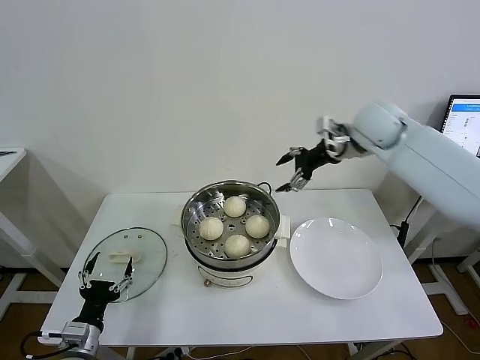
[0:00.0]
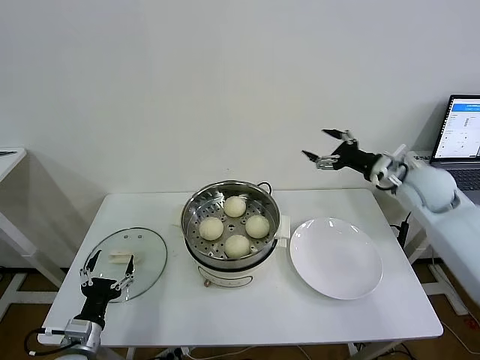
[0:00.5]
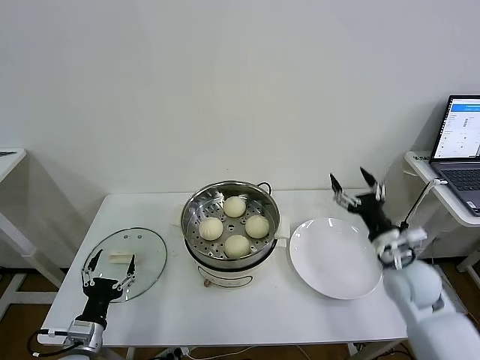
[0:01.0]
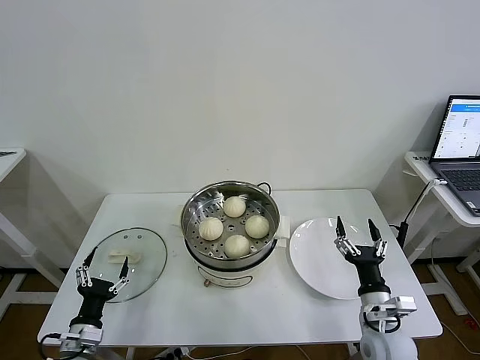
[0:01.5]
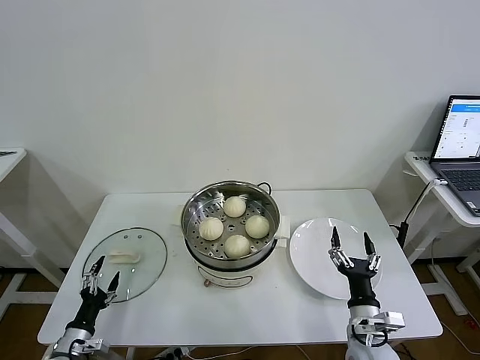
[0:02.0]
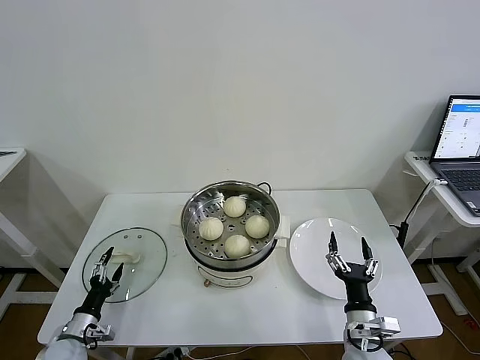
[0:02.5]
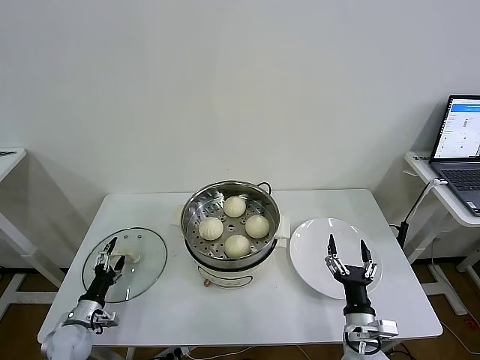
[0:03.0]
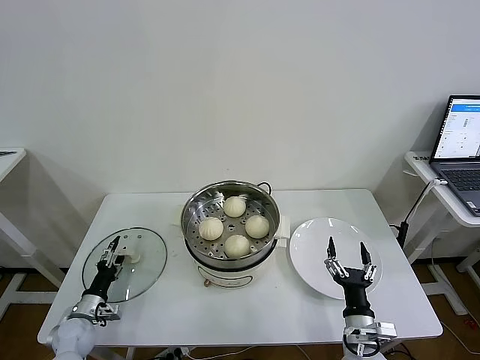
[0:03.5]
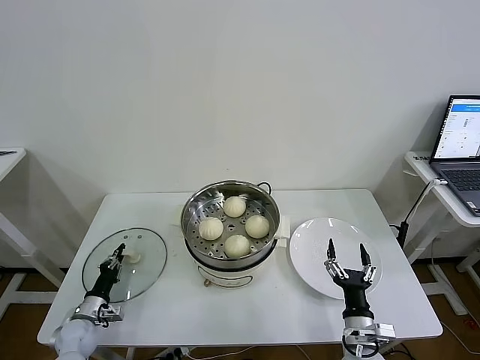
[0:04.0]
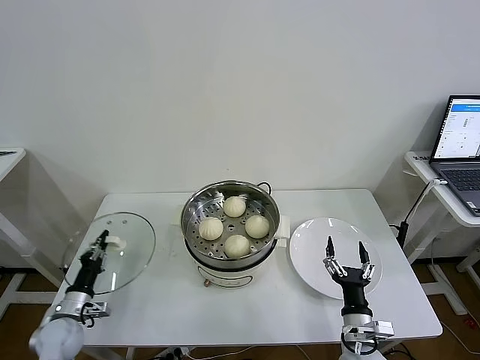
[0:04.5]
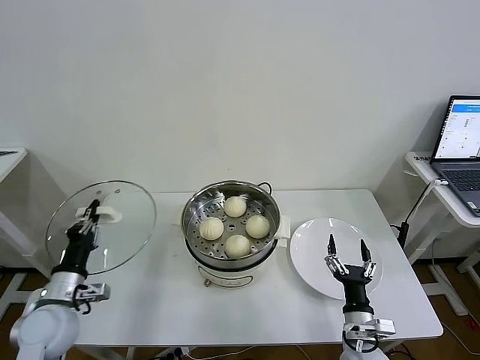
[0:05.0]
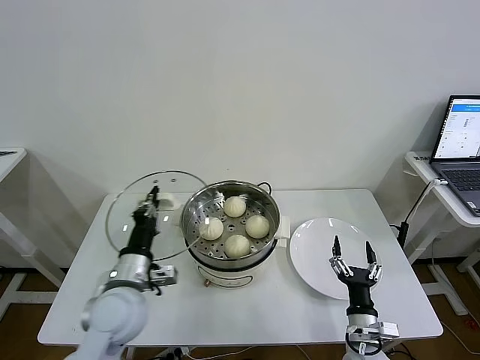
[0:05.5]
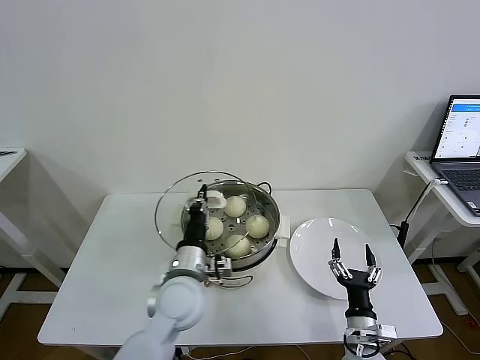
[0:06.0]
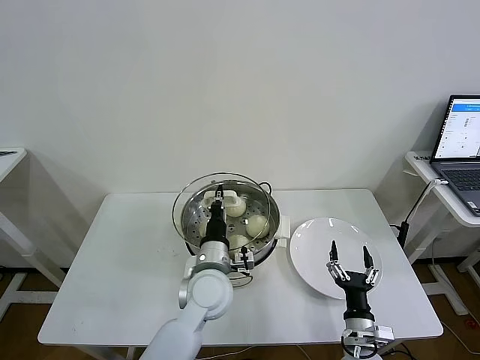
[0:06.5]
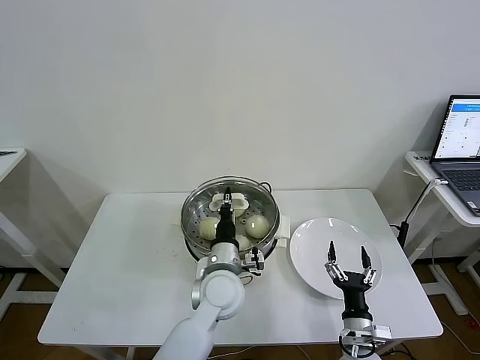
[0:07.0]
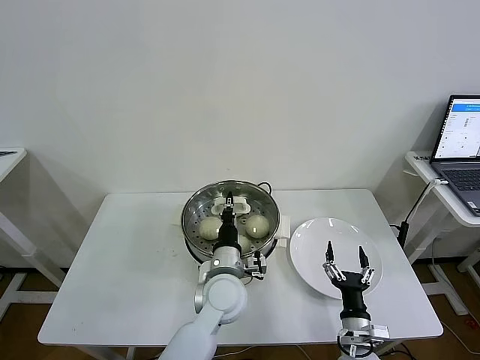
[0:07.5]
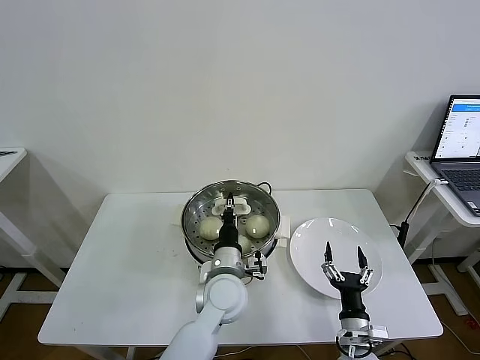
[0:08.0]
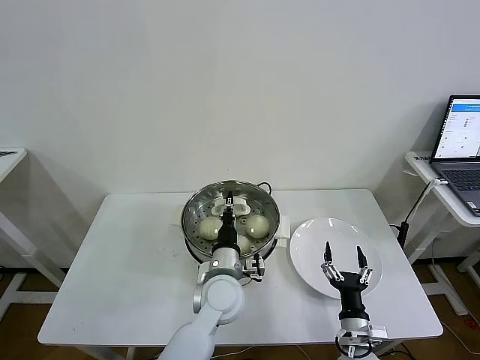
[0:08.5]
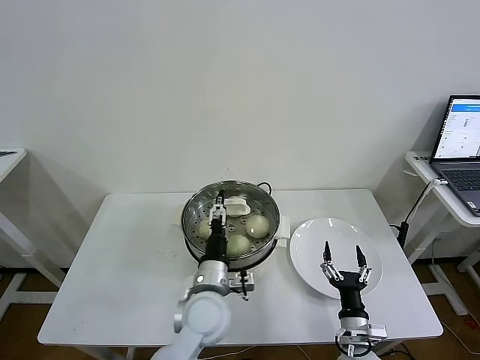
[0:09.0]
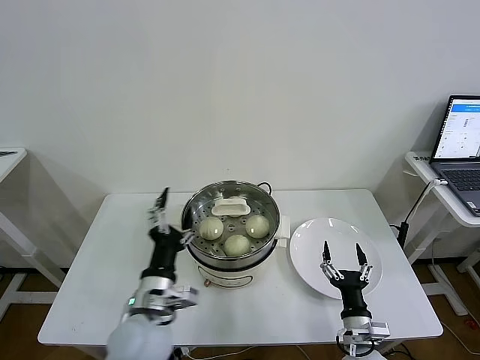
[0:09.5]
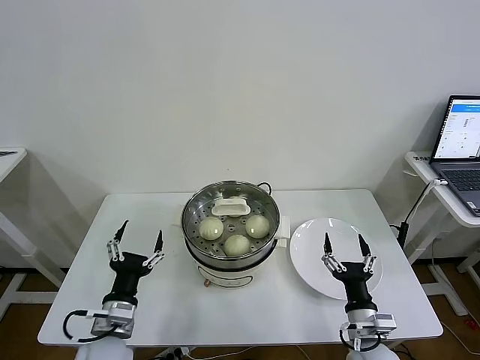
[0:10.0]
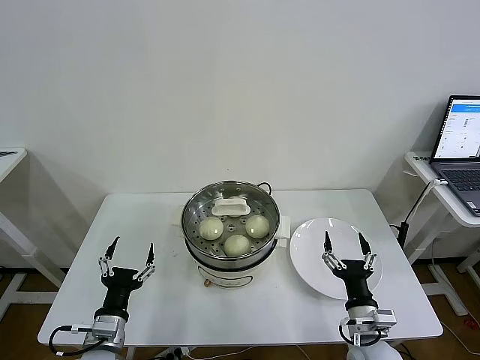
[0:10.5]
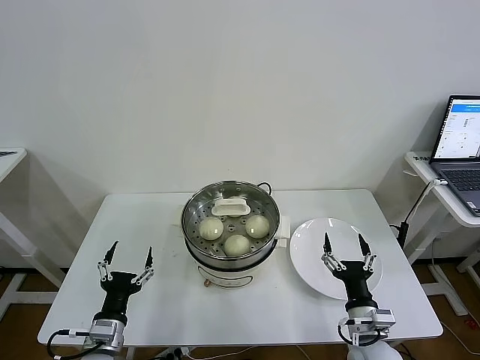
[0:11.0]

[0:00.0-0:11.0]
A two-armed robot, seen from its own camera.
Task of the whole recording: take steamed baozi put them in steamer then cover it.
Step, 0:00.0 to 0:04.0: Grasp the pot lid with left gripper.
Step, 0:04.5 to 0:09.0: Place the pot lid on the steamer with left gripper.
0:00.0 to 0:02.0: The left gripper heads downward and to the left, covering some 10 cm; the right gripper shifts approximately 50 cm downward and backward.
0:02.0 to 0:03.5: The left gripper goes about 10 cm forward.
0:03.5 to 0:05.5: The left gripper goes about 30 cm upward and to the right, and closes its fingers.
0:05.5 to 0:07.5: The left gripper goes roughly 20 cm to the right.
0:07.5 to 0:09.0: The left gripper opens its fingers.
0:09.0 to 0:11.0: The left gripper goes roughly 25 cm to the left and backward. Meanwhile the right gripper shifts about 5 cm upward.

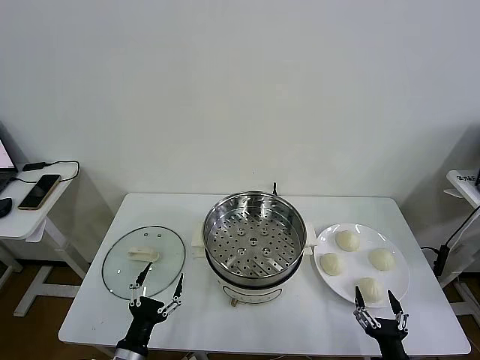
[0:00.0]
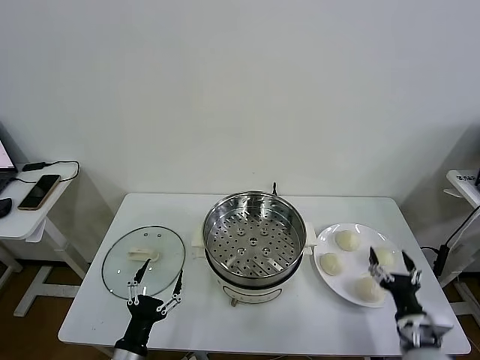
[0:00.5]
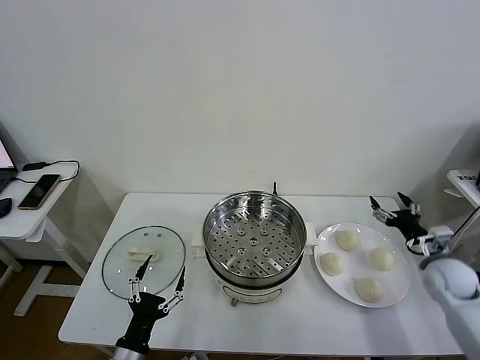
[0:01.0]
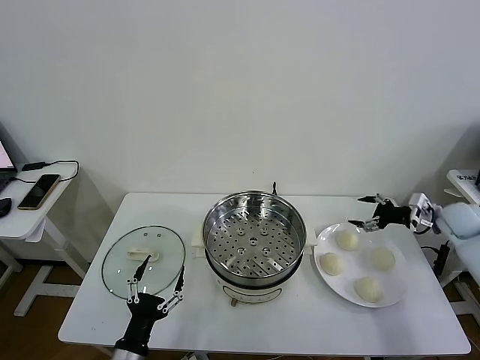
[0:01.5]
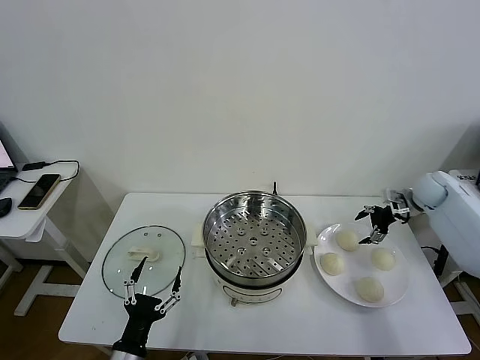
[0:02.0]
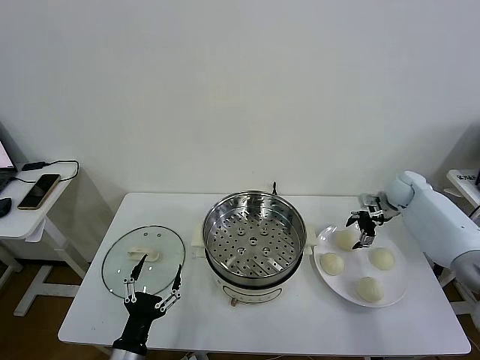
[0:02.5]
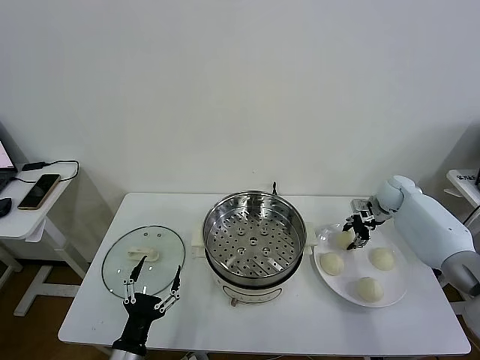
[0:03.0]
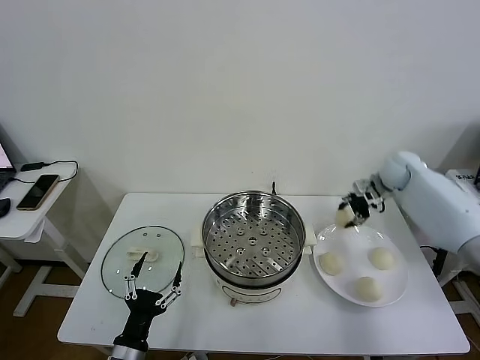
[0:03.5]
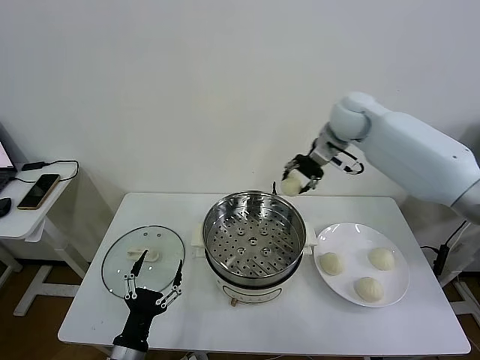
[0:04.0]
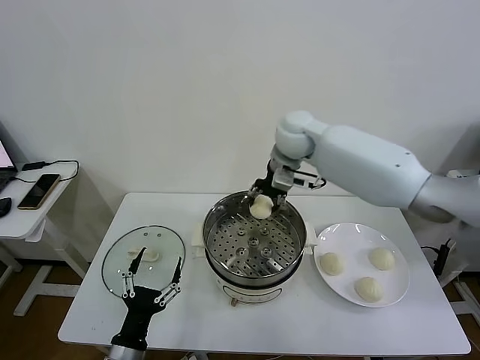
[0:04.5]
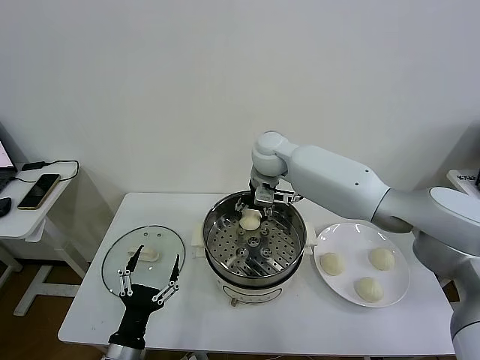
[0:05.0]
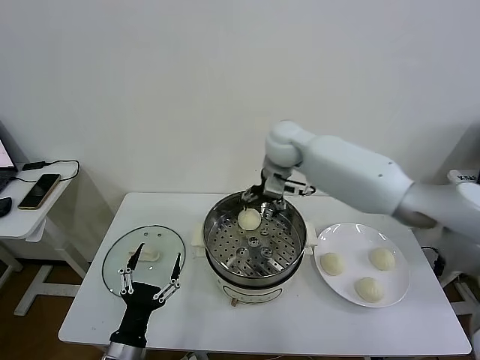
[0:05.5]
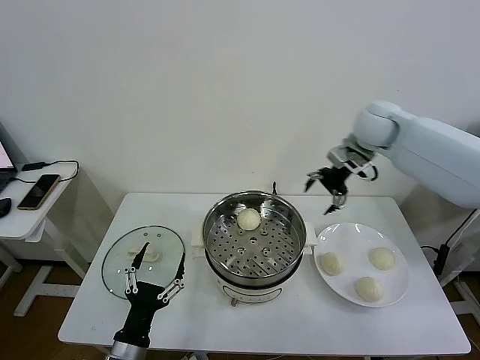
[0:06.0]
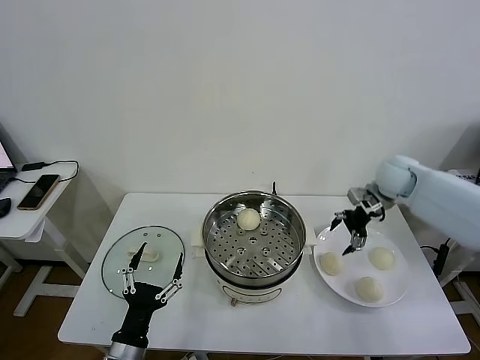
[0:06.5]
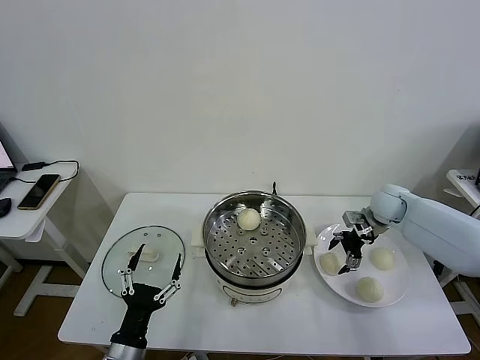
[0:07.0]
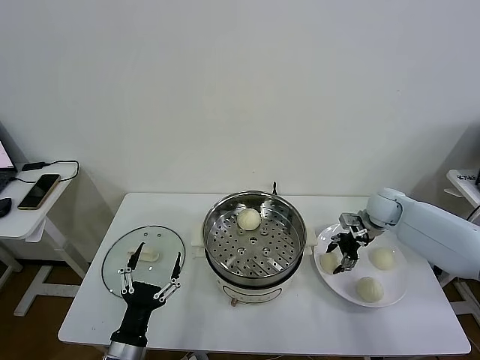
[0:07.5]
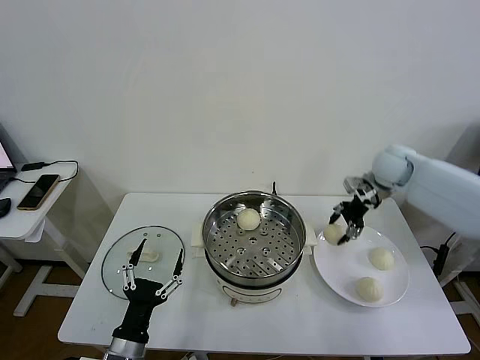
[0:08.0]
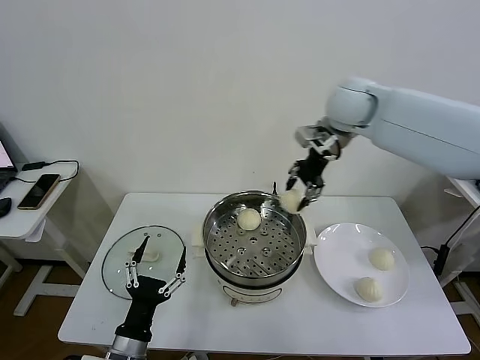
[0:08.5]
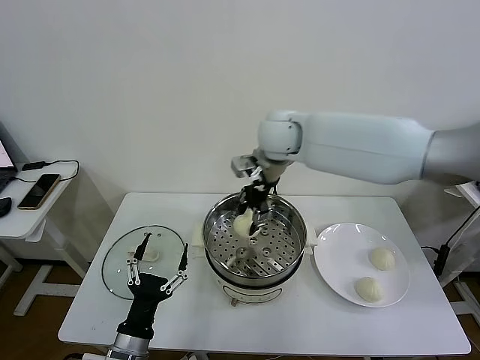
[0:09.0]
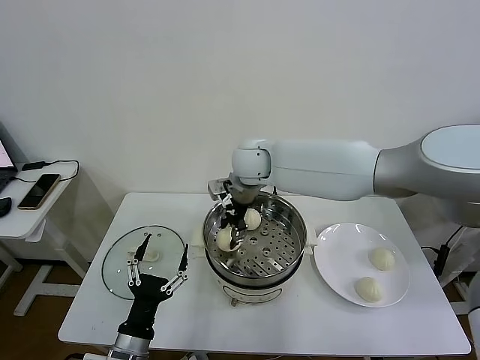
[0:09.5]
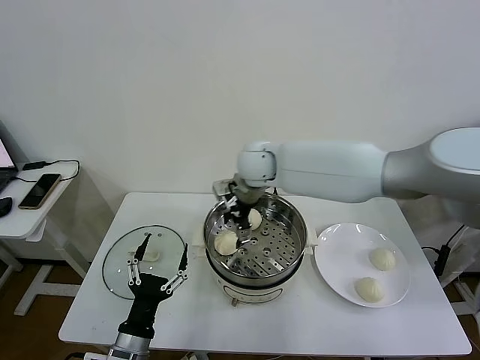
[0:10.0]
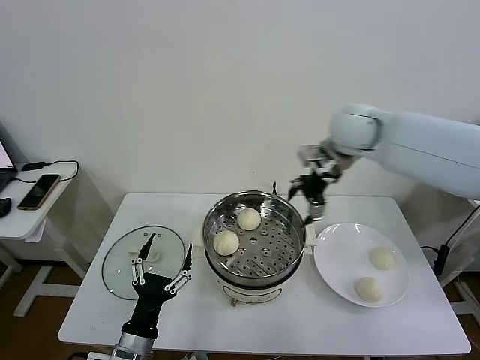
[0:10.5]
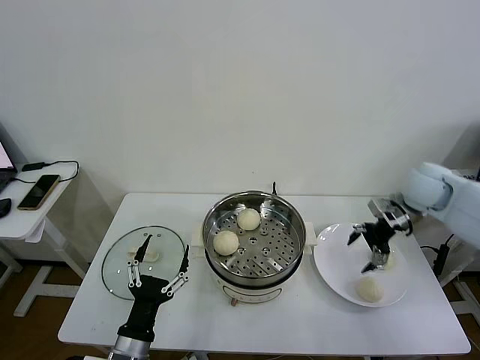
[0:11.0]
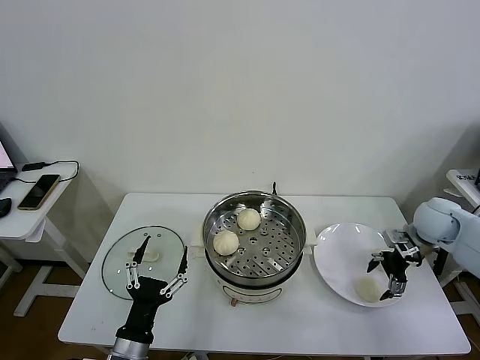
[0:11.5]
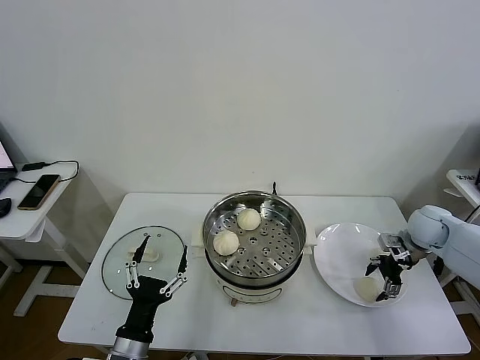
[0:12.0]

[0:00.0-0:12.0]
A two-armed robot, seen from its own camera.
Task of the whole recording: take steamed baozi put them in steamer then cover it.
Step, 0:00.0 to 0:03.0: Grasp the baozi in the plate with right gripper.
Step, 0:03.5 to 0:05.0: Place the baozi on the steamer with right gripper.
Step, 0:05.5 to 0:07.5: Grasp the baozi in the plate with right gripper.
Step, 0:08.0 to 0:09.5: Place the baozi on the steamer with right gripper.
0:02.0 to 0:04.0: The right gripper goes approximately 35 cm to the left and upward, and closes up.
0:04.0 to 0:06.0: The right gripper shifts approximately 10 cm to the right, and opens up.
0:06.0 to 0:08.0: The right gripper goes downward and returns, about 20 cm each way, and closes up.
0:08.0 to 0:10.0: The right gripper moves to the left, some 30 cm, and opens up.
0:10.0 to 0:12.0: The right gripper is displaced to the right by some 40 cm.

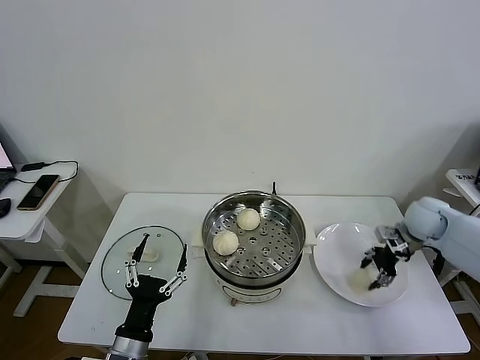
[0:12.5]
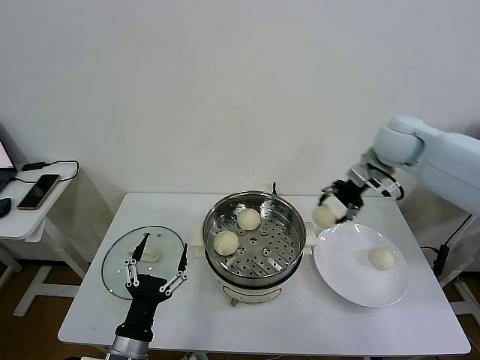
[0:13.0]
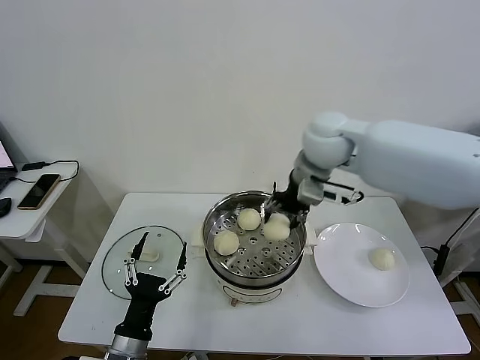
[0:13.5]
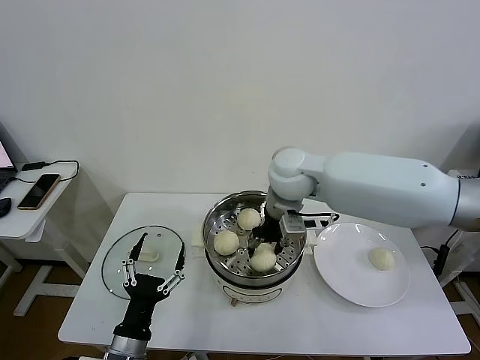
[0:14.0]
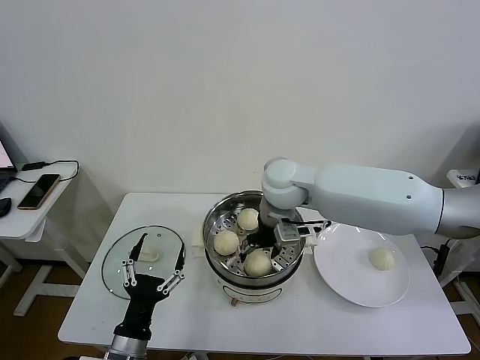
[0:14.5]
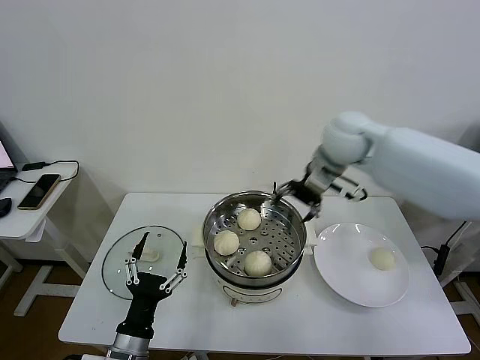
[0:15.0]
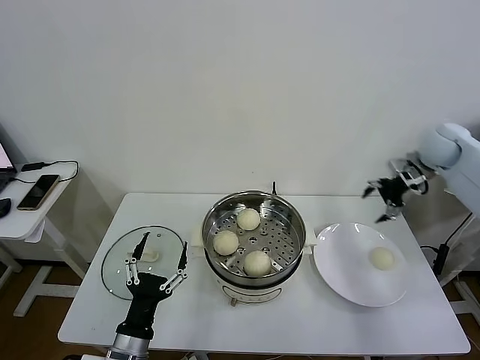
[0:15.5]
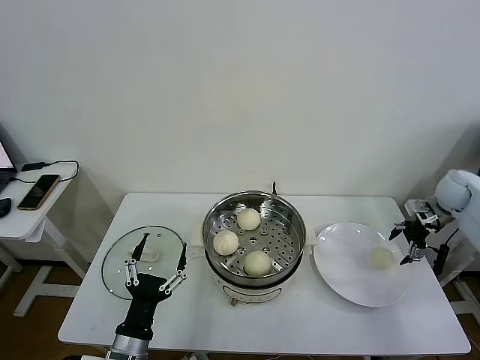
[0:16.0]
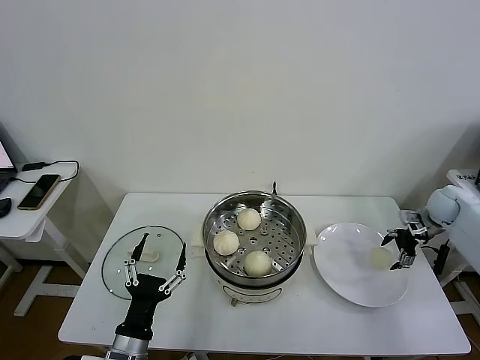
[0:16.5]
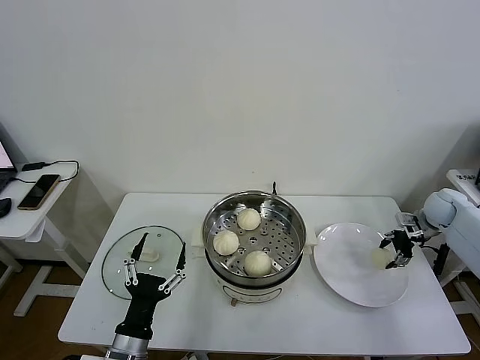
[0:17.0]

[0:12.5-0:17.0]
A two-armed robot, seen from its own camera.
Task of the whole recording: take steamed baozi put them in steamer then cover it.
Step, 0:12.5 to 0:14.0: Place the baozi on the steamer with right gripper.
Step, 0:14.5 to 0:17.0: Grasp the baozi in the plate with right gripper.
0:12.5 to 0:14.5: The right gripper moves to the left, approximately 35 cm, and opens its fingers.
0:14.5 to 0:17.0: The right gripper shifts approximately 40 cm to the right, and closes.
